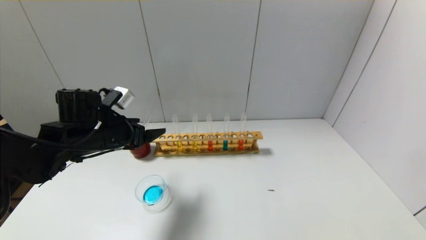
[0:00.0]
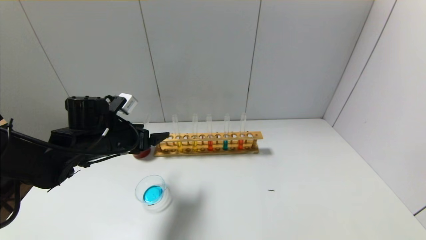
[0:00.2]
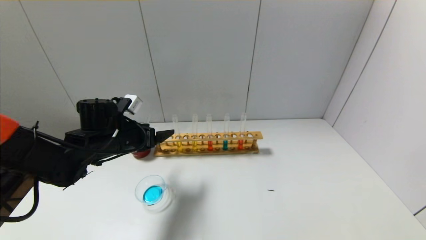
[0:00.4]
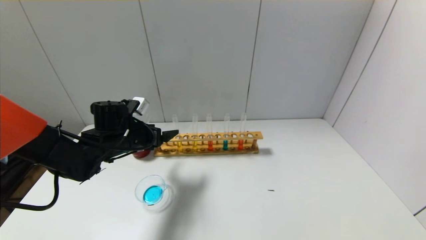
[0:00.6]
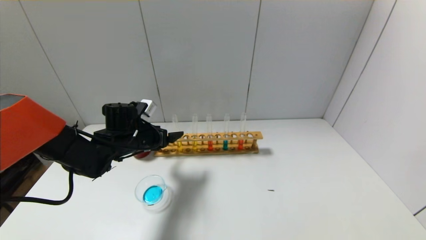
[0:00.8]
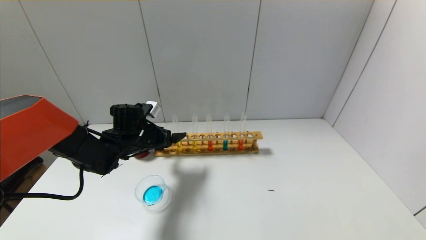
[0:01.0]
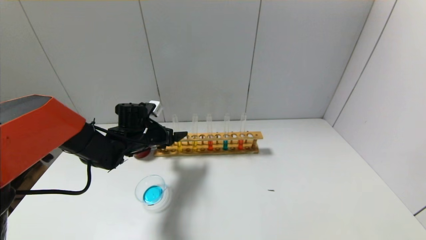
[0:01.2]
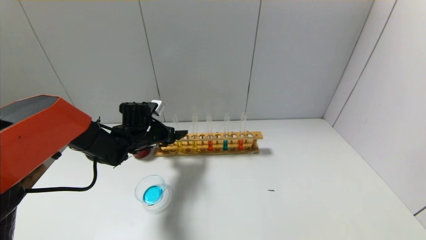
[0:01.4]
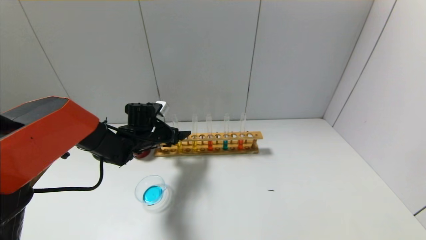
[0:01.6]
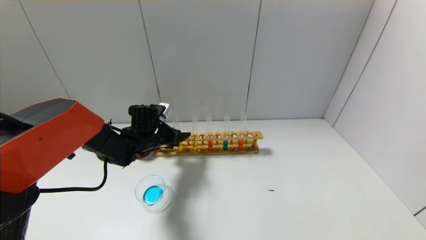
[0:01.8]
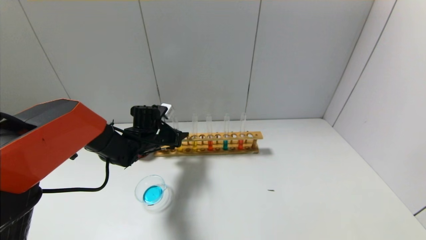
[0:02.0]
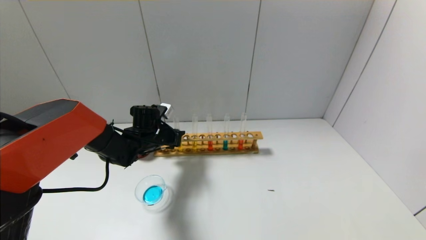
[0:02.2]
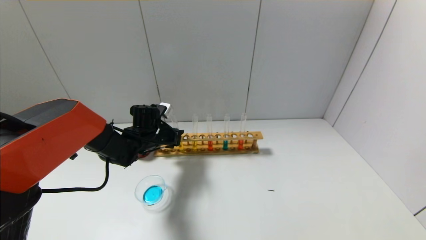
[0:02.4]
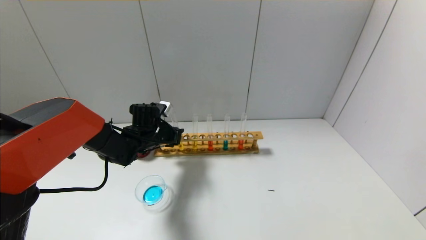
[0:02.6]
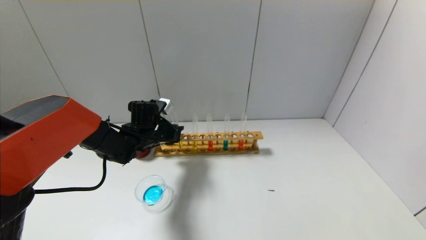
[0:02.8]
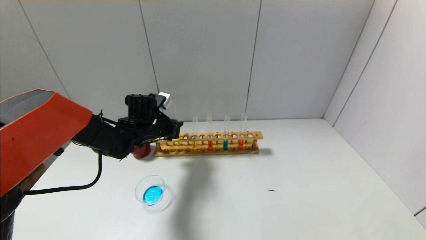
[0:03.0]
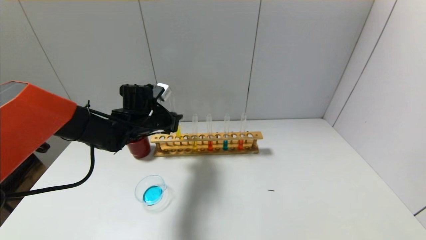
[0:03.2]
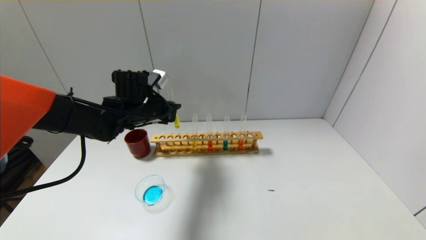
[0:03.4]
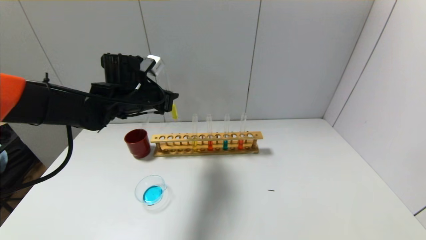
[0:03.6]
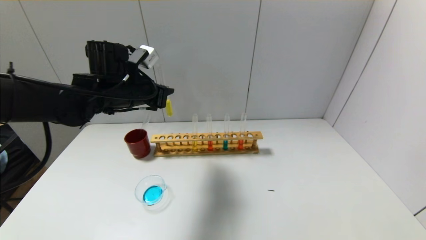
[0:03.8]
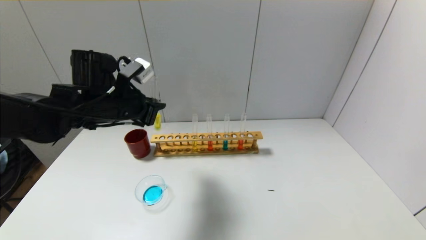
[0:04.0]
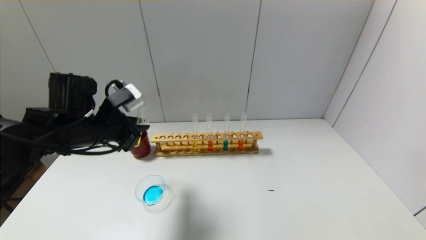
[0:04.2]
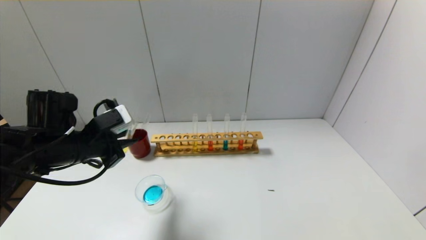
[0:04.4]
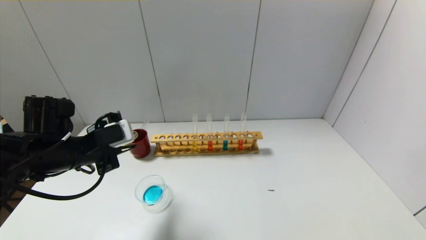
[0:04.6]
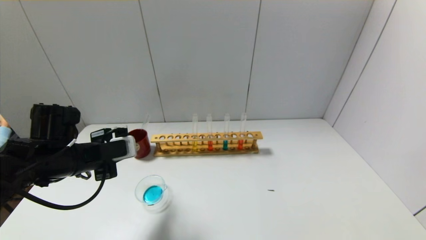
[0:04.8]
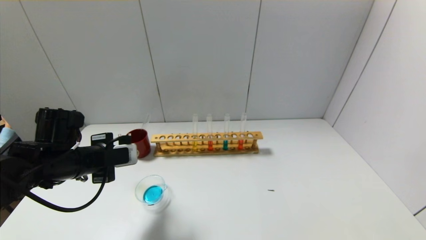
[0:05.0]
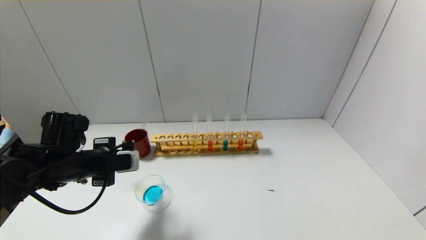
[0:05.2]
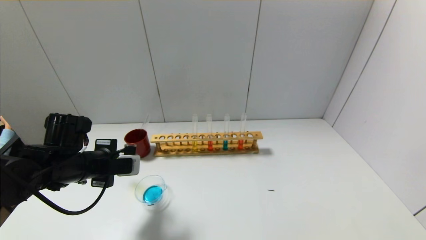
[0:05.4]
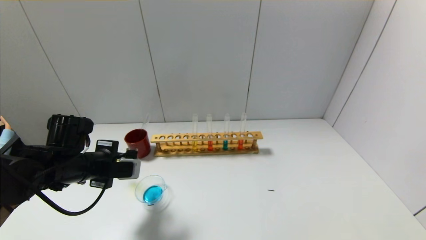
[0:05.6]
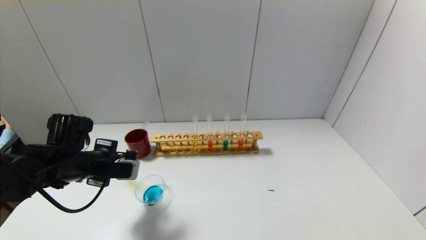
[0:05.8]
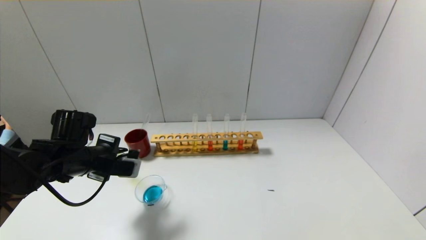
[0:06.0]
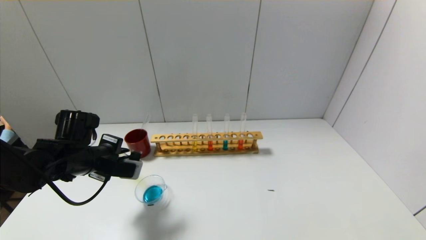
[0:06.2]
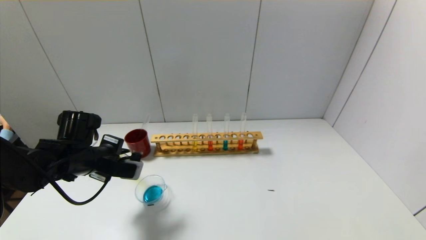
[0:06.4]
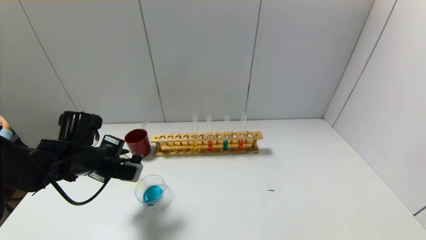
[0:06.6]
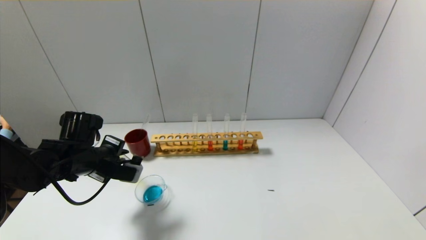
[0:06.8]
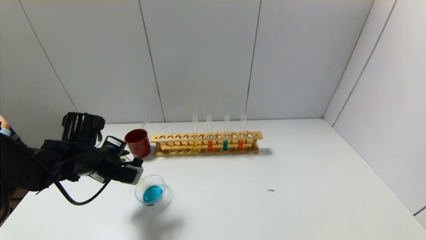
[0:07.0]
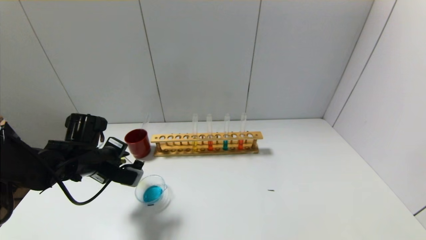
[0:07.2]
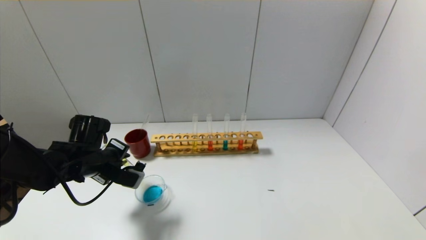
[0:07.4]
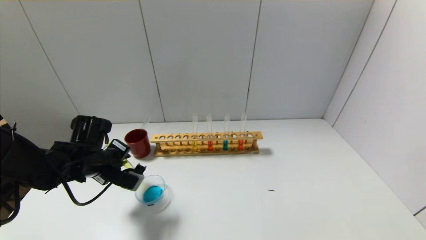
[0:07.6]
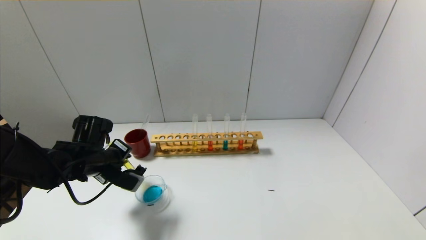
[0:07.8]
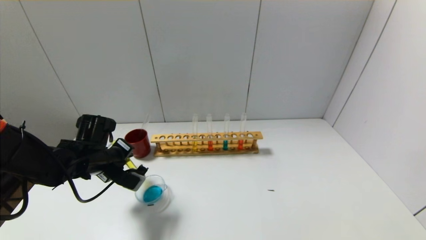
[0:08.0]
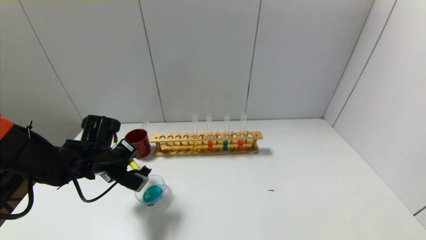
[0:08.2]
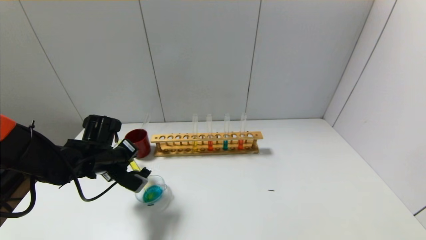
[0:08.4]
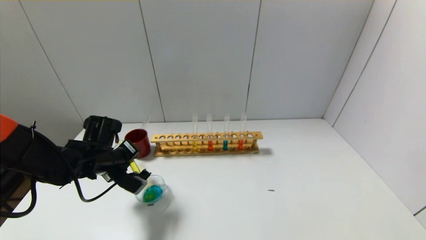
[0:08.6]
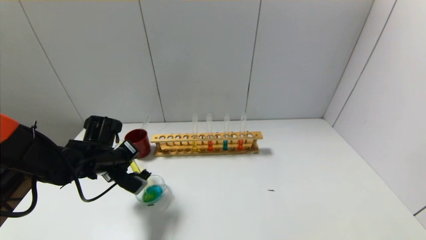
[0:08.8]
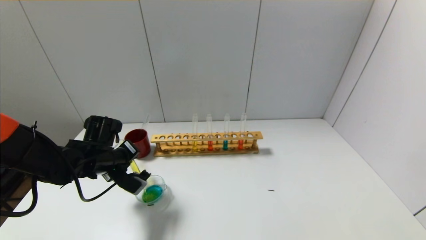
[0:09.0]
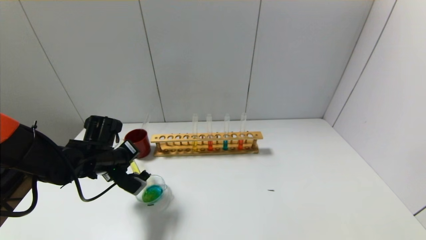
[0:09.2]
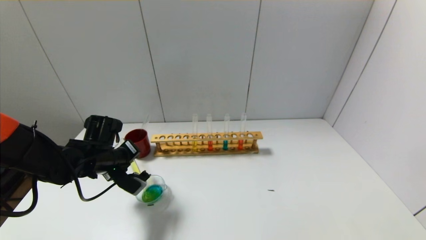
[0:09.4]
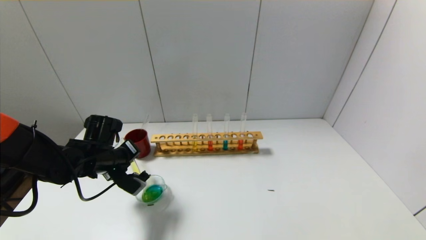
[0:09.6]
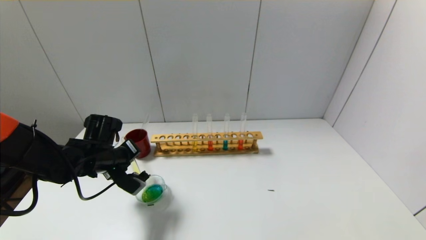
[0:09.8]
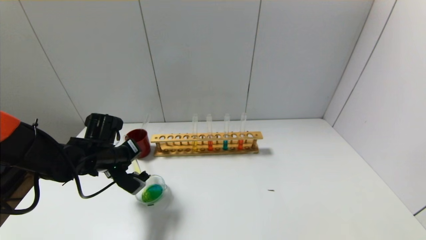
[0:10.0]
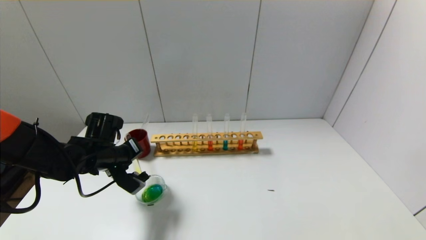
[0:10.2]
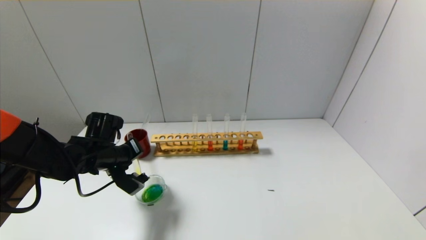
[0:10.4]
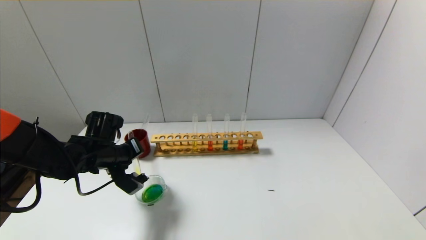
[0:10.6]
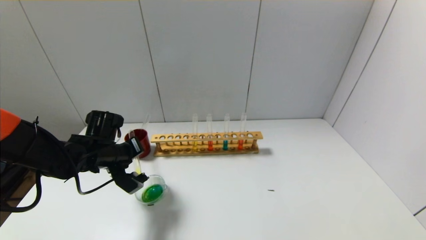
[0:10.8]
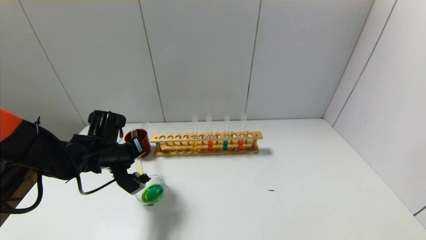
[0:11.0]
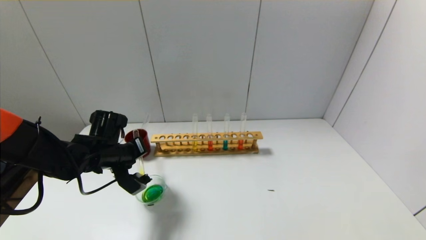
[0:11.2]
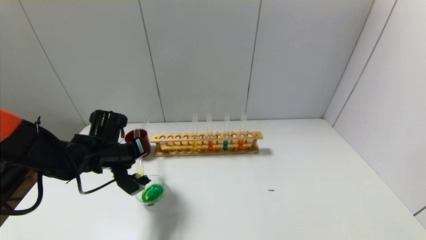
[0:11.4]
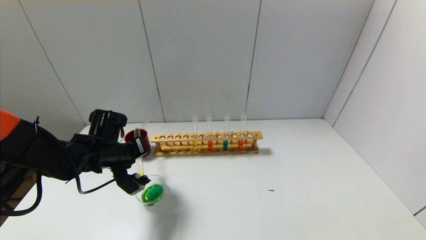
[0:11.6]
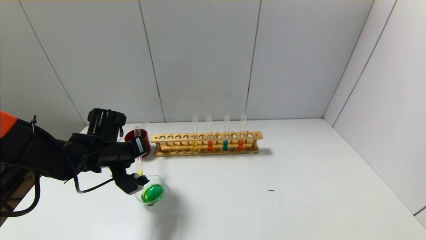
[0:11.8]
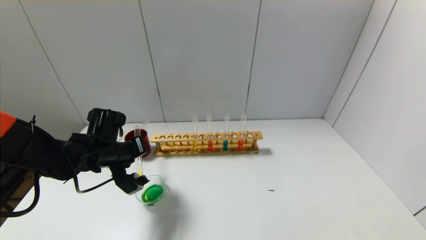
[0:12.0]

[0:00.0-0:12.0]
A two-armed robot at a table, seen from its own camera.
Step, 0:00.0 to 0:02.2: Grasp the yellow reagent with the left gripper.
0:00.0 to 0:01.6: The left gripper goes about 15 cm forward, downward and to the right.
0:01.6 to 0:03.0: The left gripper closes its fingers.
0:03.0 to 0:04.4: The left gripper travels backward, to the left and upward by approximately 20 cm.
0:04.4 to 0:06.0: The left gripper goes some 5 cm downward.
0:06.0 to 0:07.6: There are only small adjustments of the grippers.
0:07.6 to 0:09.0: The grippers make only small movements.
0:09.0 to 0:10.4: The grippers make only small movements.
0:10.4 to 0:12.0: The grippers stay close to where they were, moving slightly.

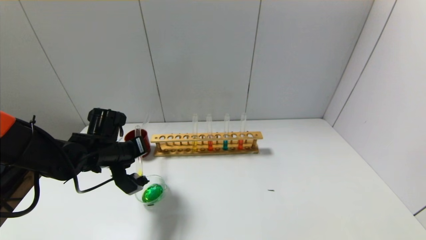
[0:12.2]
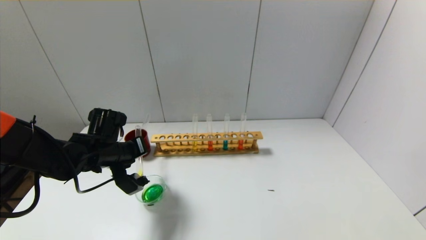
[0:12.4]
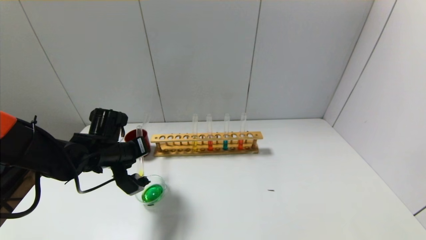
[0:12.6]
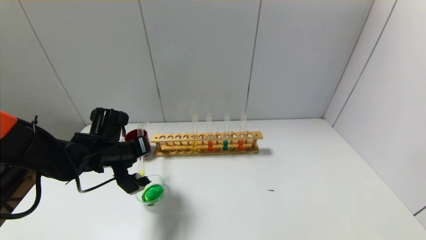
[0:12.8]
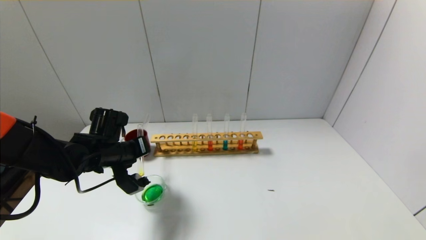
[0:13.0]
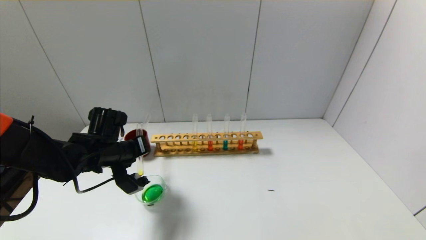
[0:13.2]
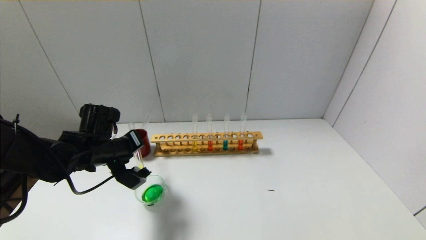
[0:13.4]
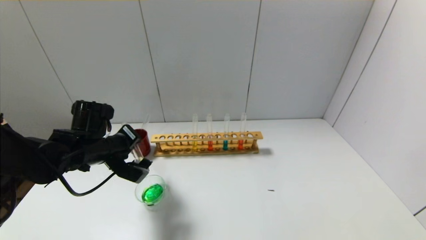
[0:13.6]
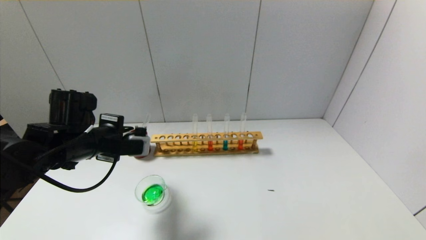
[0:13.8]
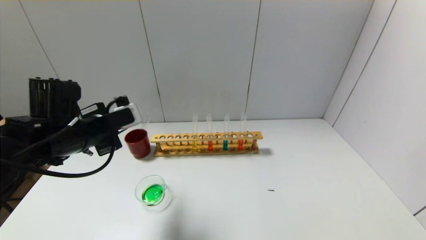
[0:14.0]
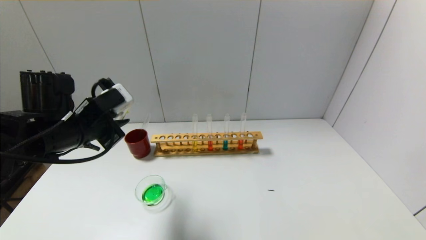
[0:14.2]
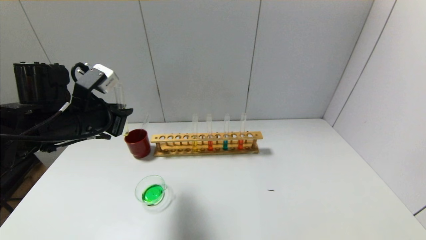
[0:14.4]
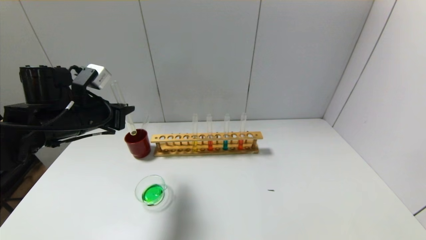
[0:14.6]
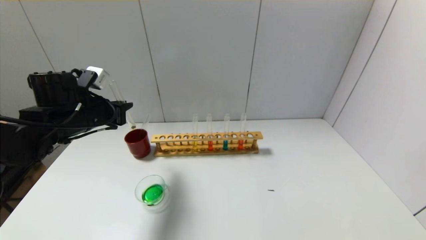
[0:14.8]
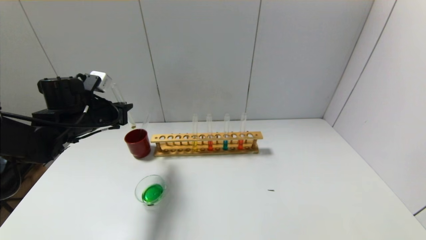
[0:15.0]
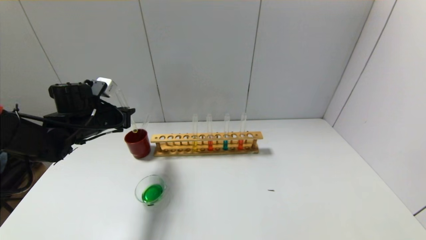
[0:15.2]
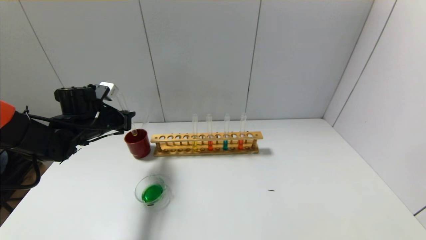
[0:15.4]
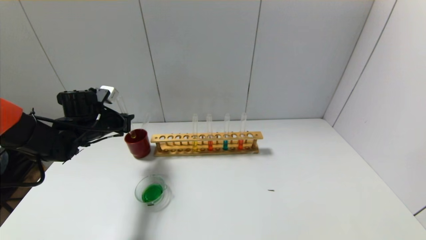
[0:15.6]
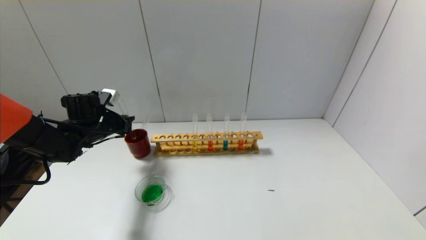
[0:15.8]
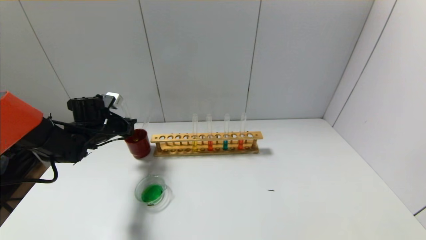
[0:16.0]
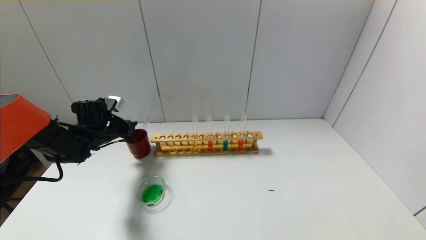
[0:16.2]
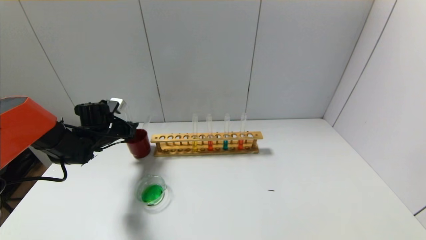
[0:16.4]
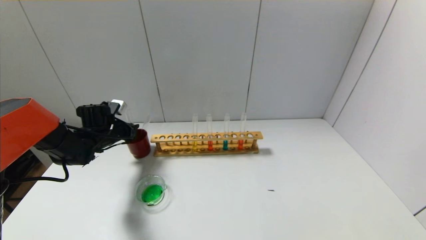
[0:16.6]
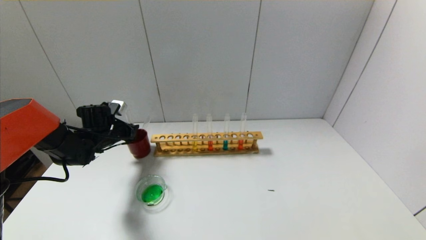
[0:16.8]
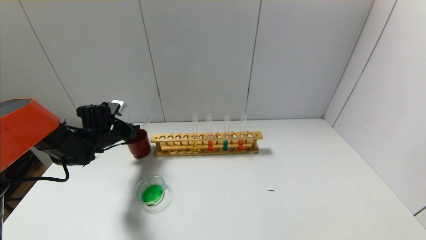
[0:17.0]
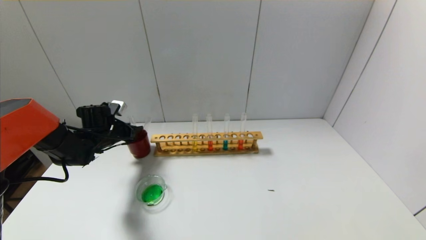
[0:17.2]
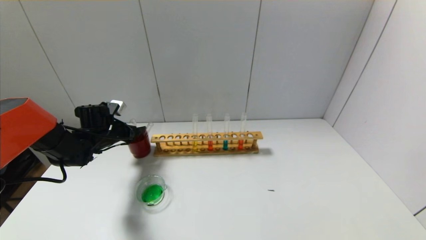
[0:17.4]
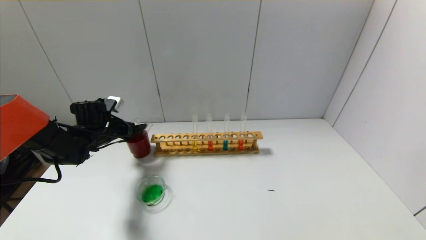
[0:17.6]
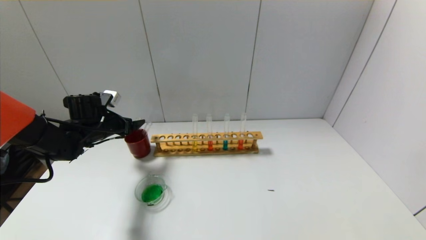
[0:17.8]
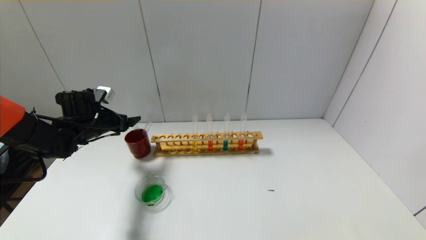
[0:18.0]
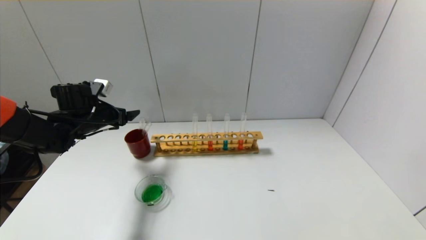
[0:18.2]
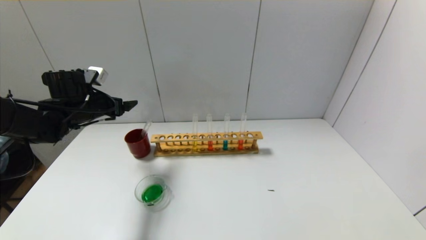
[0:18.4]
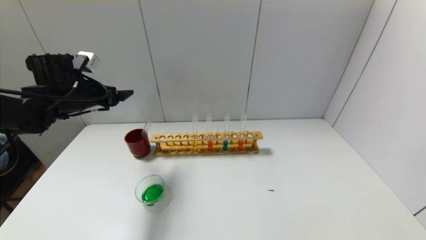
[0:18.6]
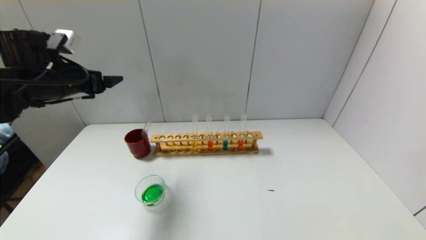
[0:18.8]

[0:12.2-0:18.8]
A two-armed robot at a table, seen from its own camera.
Step, 0:13.8 to 0:17.2: Place the test tube into the brown cup with the left gripper.
0:12.2 to 0:13.8: The left gripper goes approximately 5 cm upward.
0:13.8 to 0:15.4: The left gripper moves forward and to the left, some 10 cm.
0:15.4 to 0:17.2: The left gripper shifts roughly 5 cm downward, and opens.
0:17.2 to 0:18.8: The left gripper heads upward and backward, covering approximately 20 cm, and opens.
